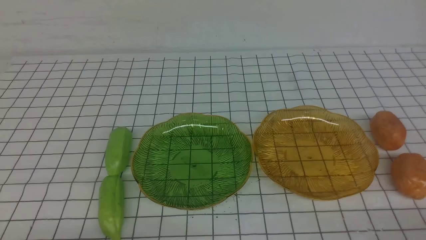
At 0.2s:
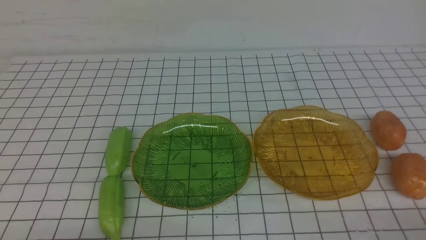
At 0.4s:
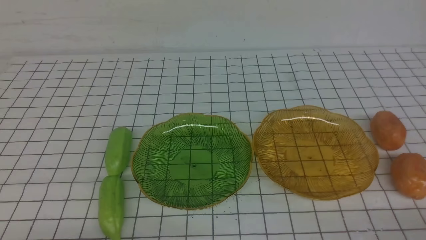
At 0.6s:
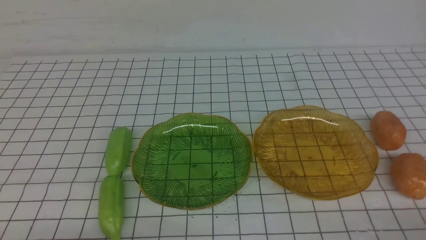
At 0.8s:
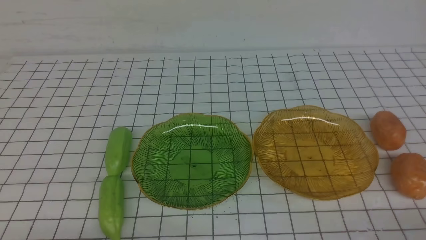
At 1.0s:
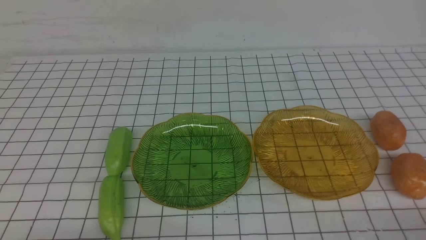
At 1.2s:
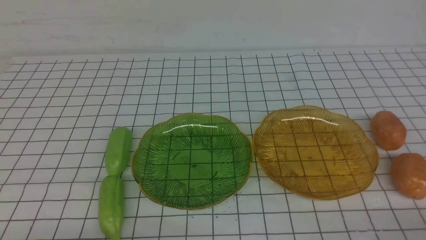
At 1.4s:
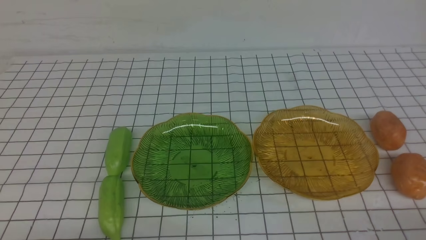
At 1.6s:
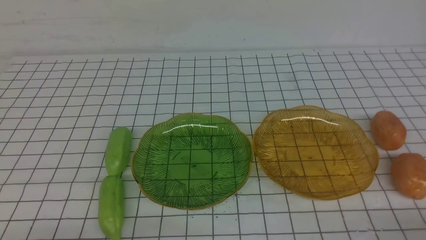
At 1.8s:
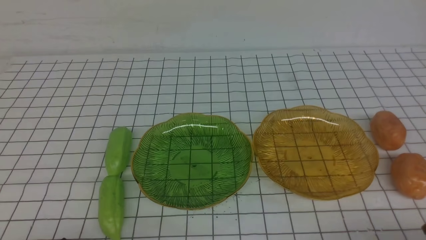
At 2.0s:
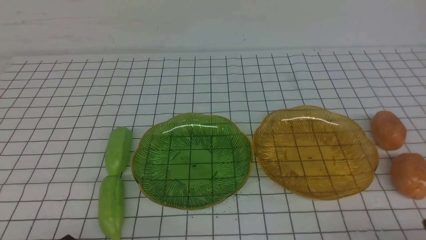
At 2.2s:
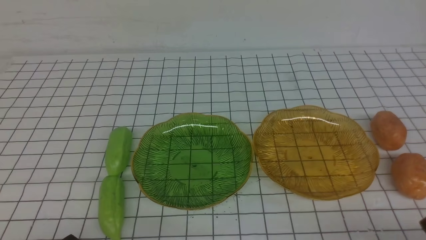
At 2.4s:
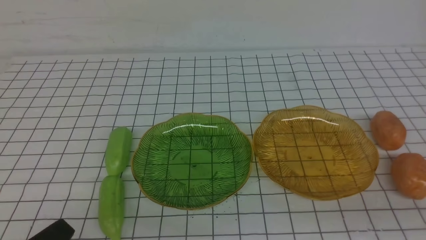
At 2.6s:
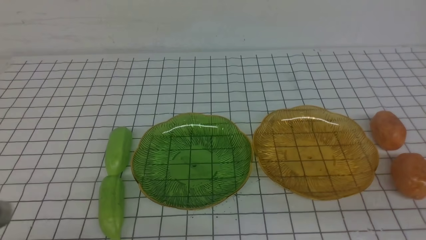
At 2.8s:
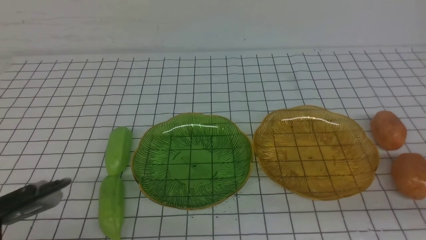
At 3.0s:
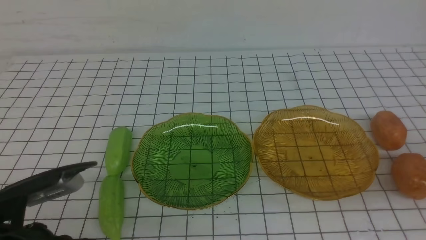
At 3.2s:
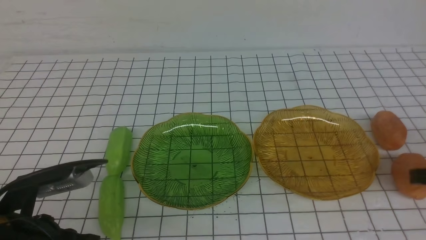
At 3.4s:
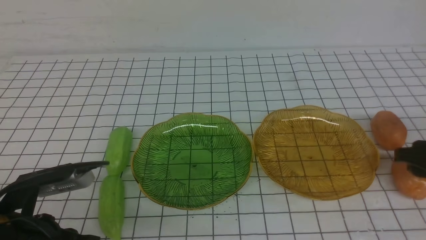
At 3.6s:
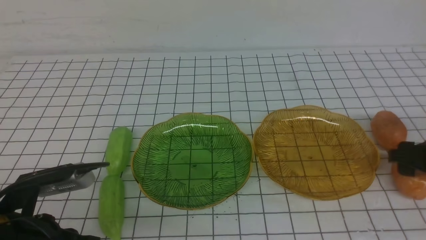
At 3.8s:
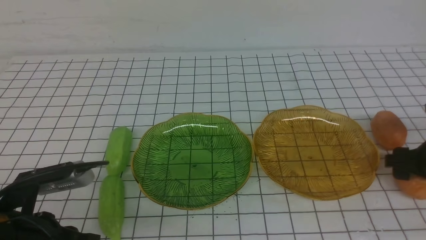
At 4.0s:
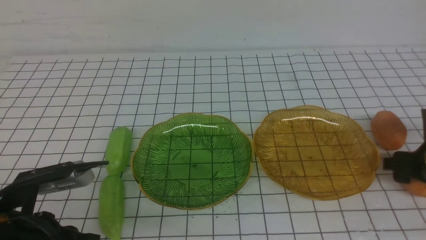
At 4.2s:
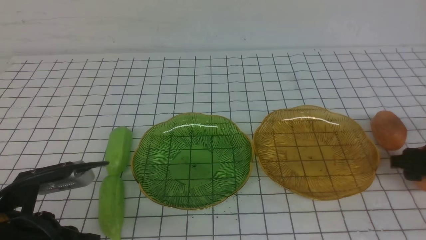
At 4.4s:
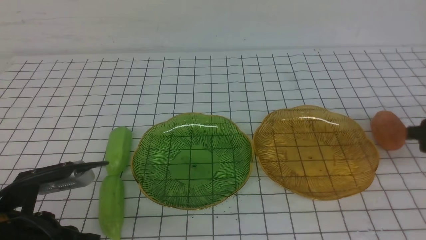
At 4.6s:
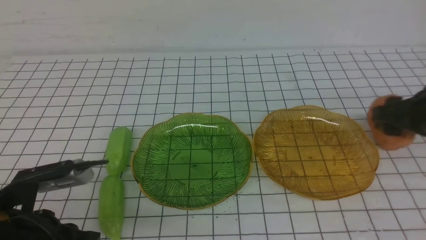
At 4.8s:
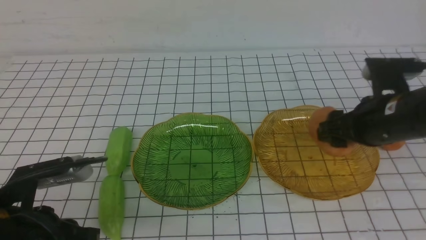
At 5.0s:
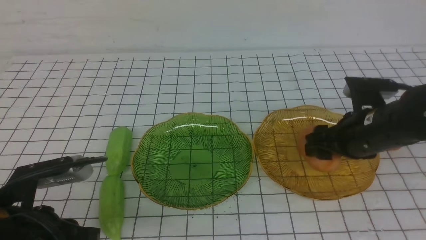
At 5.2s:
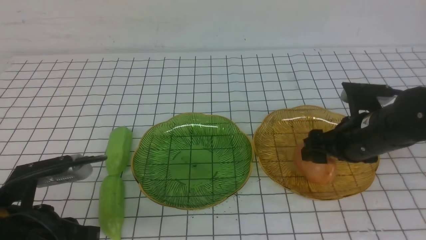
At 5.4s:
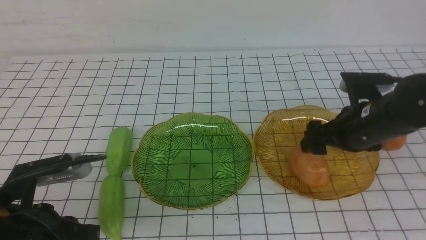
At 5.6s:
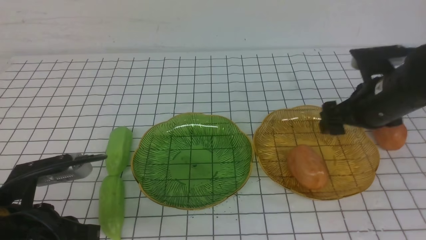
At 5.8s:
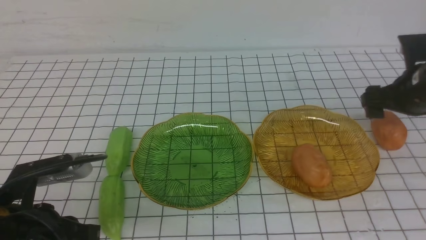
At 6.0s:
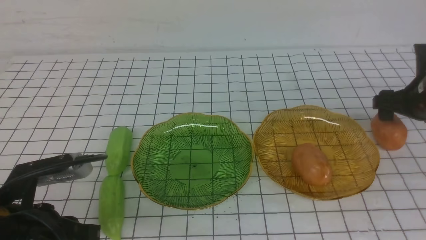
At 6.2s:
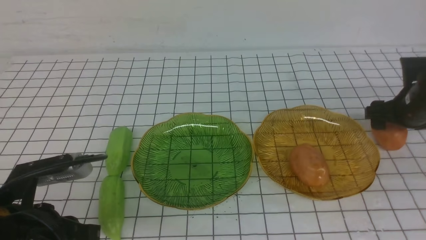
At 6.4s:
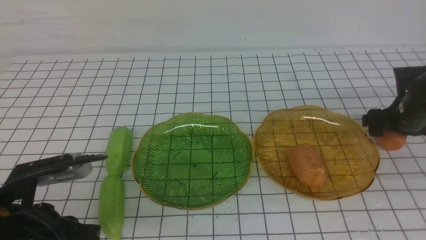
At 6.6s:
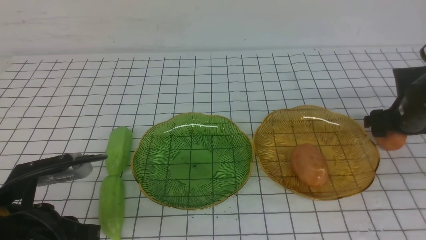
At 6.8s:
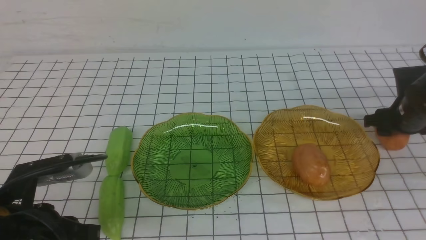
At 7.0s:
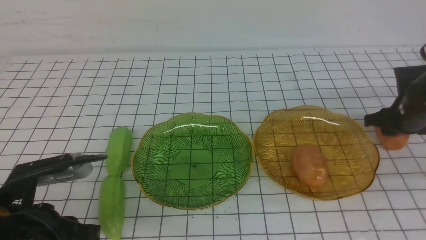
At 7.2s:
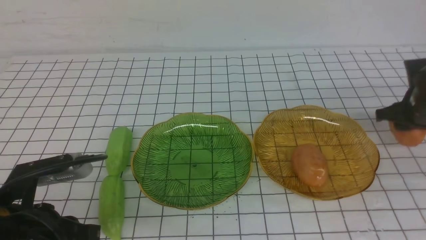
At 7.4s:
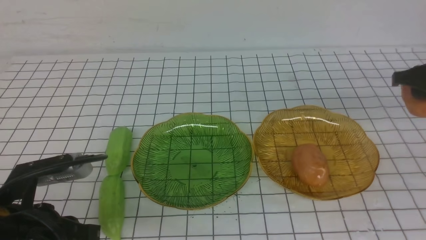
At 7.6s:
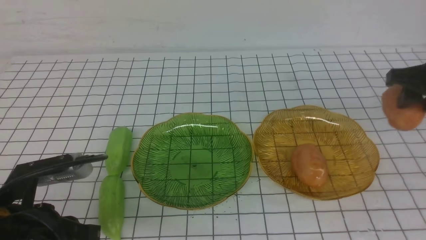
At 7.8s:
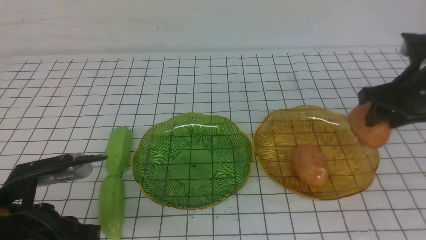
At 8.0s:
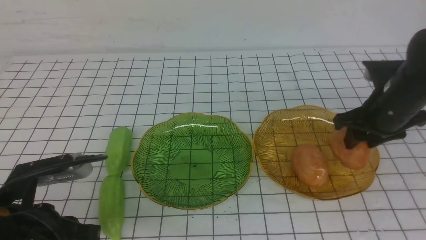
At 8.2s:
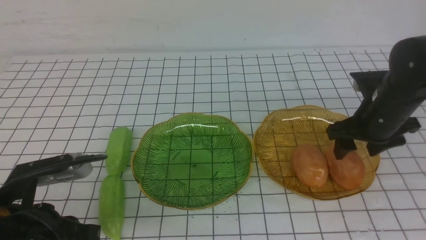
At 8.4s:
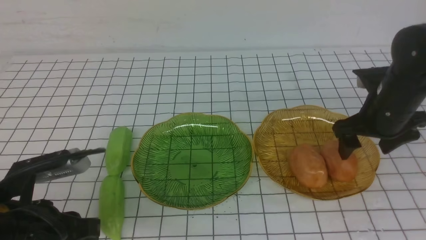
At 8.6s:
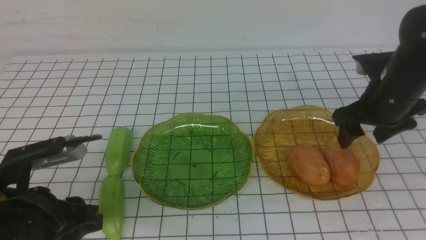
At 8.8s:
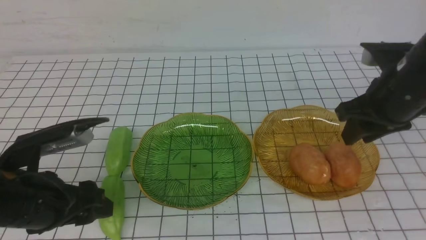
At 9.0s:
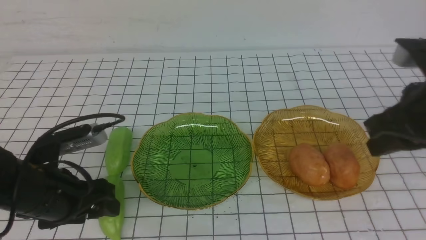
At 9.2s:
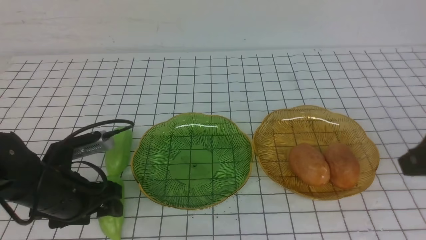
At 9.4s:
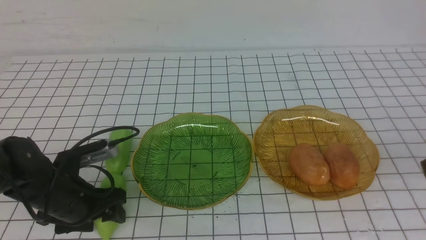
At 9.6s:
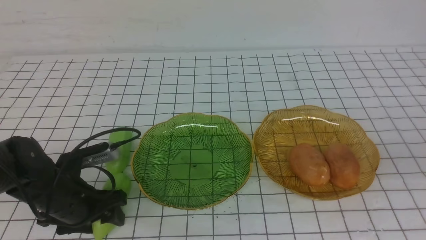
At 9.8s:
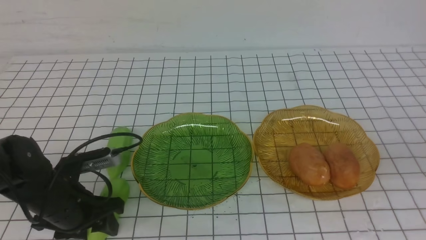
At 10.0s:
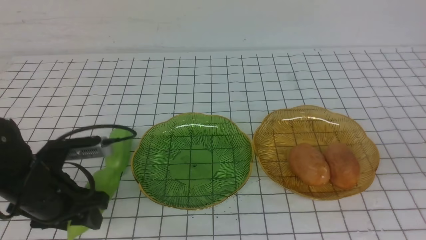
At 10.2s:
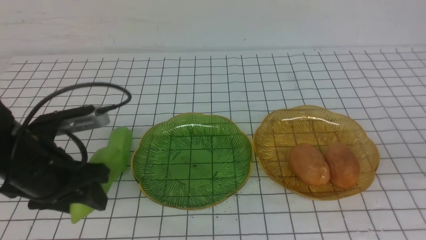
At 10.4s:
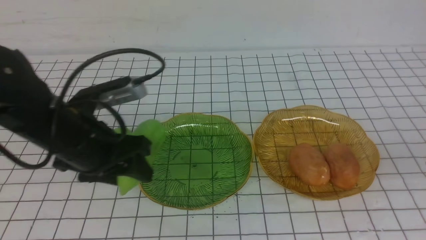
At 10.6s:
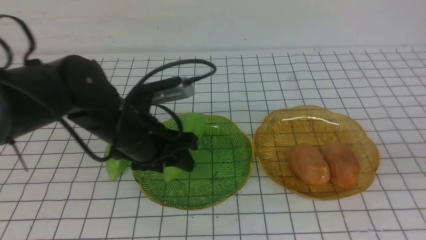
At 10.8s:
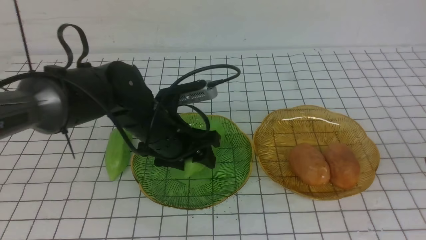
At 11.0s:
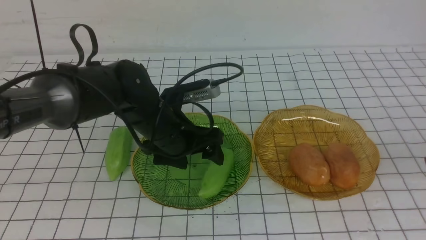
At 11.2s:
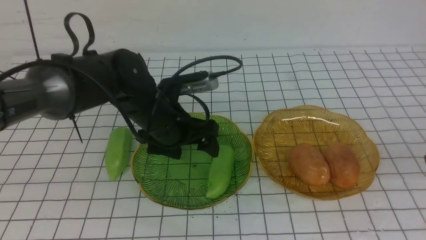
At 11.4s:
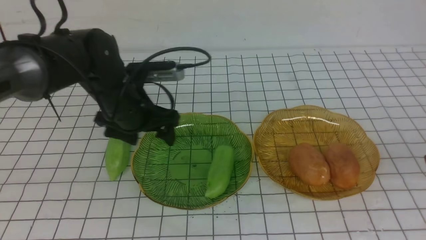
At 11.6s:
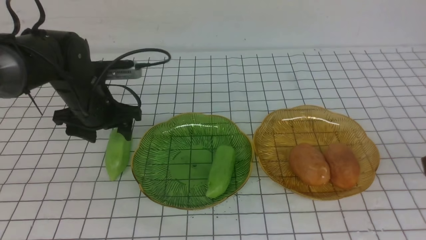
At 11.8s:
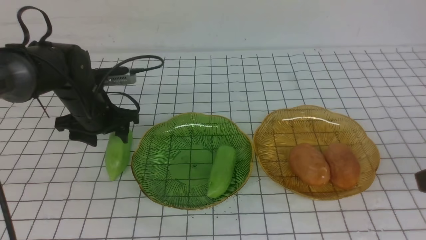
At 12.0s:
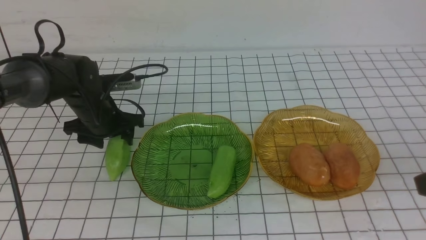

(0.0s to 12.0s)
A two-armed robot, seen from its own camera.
Step, 0.0s - 5.4s: Grab a potato with your right arm and put it on the right plate.
Step, 5.6s - 8.4s: Grab a potato with your right arm and put it on the right plate.
1.6s - 3.0s: Both grippers travel together forward and upward, about 10 cm.
3.0s - 4.4s: The right gripper heads forward, covering approximately 10 cm, and opens its fingers.
4.4s - 6.0s: The right gripper is displaced forward by approximately 10 cm, and moves approximately 10 cm to the left and comes back.
6.0s - 7.6s: The right gripper travels upward by about 5 cm, and closes.
7.6s - 9.0s: The left gripper goes about 5 cm forward, and opens its fingers. The right gripper travels backward and to the left by approximately 10 cm, and closes.
9.0s - 10.4s: The left gripper is displaced to the right, forward and upward by about 10 cm. Meanwhile the right gripper is displaced backward by roughly 10 cm.
10.4s - 12.0s: The left gripper is displaced forward, downward and to the left by about 15 cm.

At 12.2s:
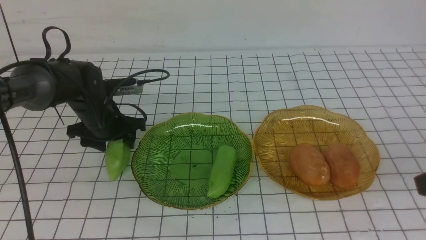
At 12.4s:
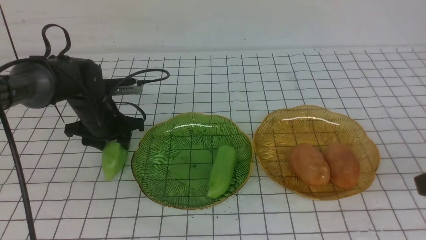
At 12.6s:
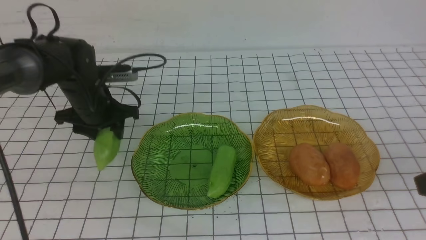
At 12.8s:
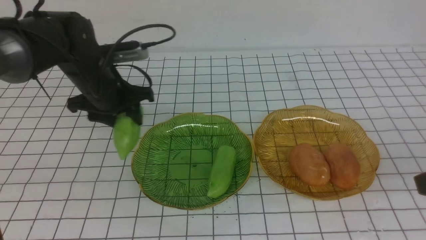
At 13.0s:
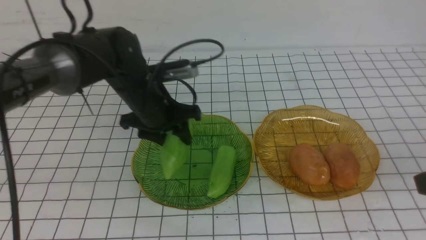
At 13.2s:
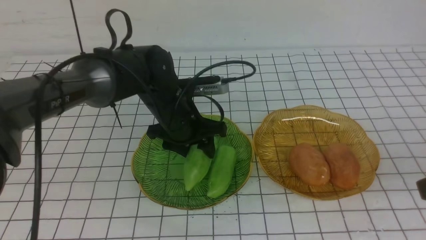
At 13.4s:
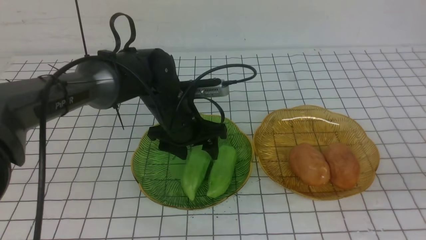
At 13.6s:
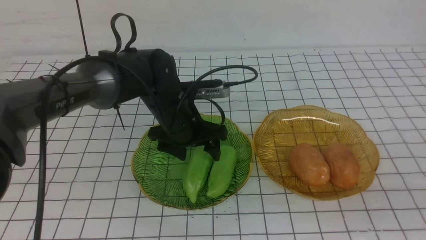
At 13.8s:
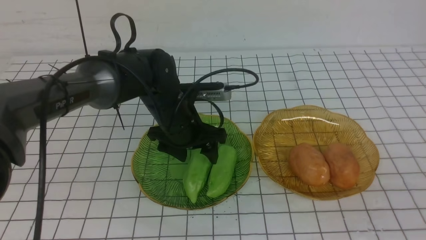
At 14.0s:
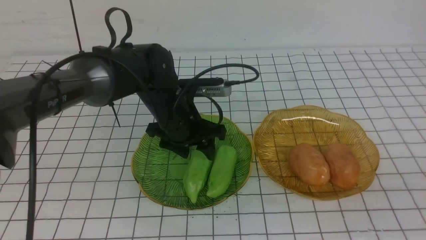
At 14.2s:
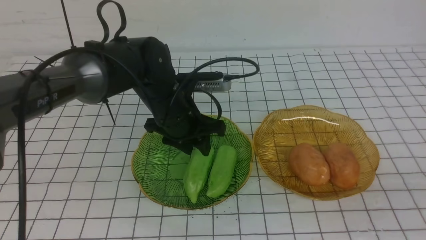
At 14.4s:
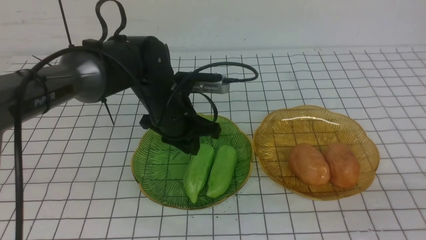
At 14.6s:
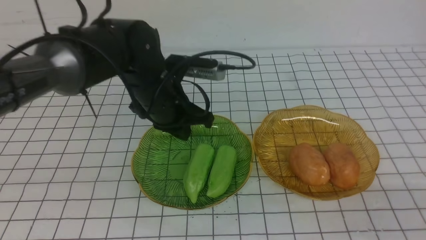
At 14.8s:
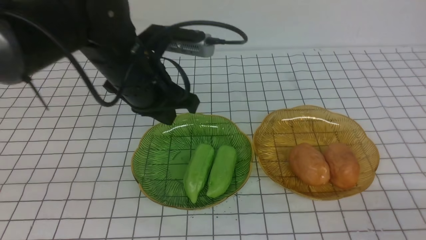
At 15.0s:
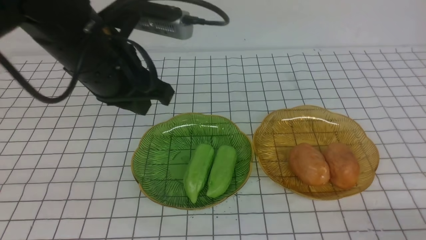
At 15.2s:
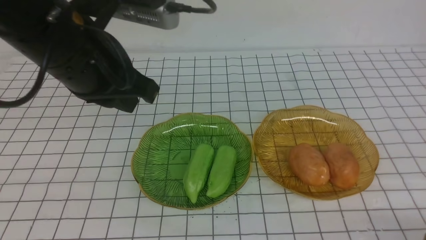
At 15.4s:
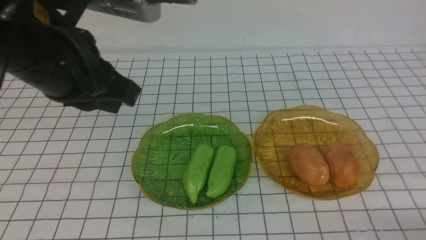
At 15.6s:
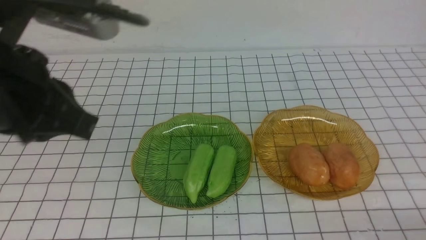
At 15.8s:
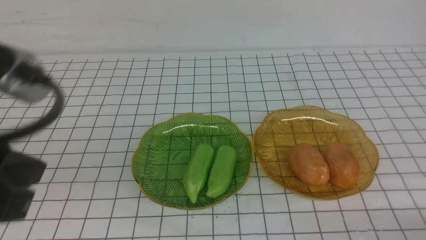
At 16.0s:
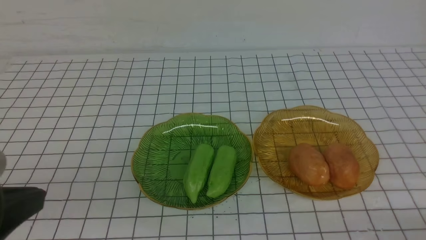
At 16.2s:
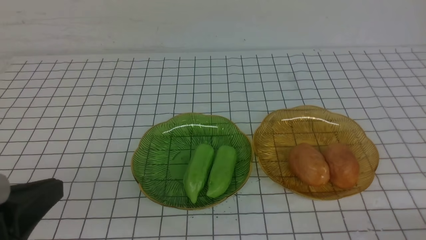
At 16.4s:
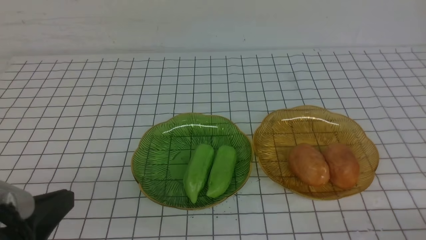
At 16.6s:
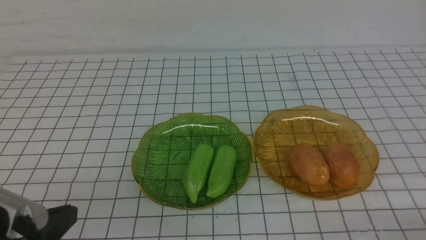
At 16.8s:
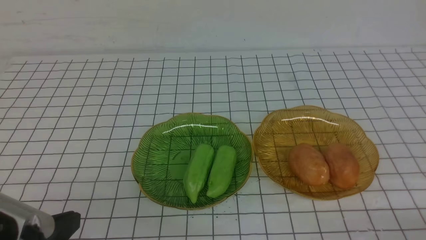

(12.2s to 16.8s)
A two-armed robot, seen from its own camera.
12.2s - 13.8s: The left gripper heads to the right, covering roughly 15 cm. The right gripper travels backward by some 10 cm.
13.8s - 15.2s: The right gripper shifts approximately 15 cm downward, while the left gripper travels upward and backward by approximately 20 cm, and closes.
15.2s - 16.8s: The left gripper moves backward, downward and to the left, approximately 25 cm.
